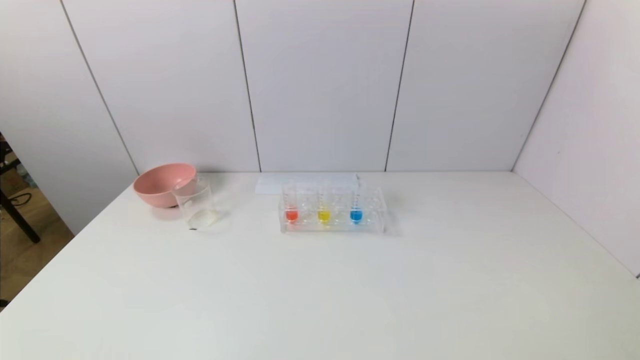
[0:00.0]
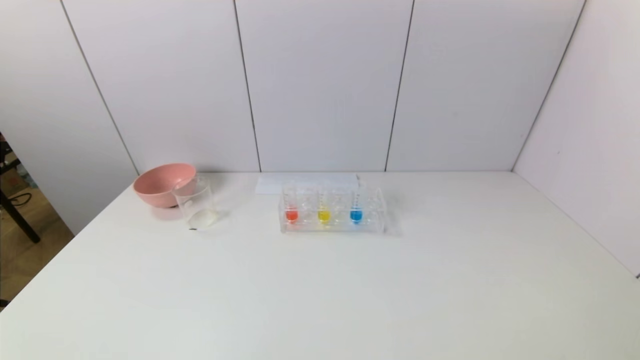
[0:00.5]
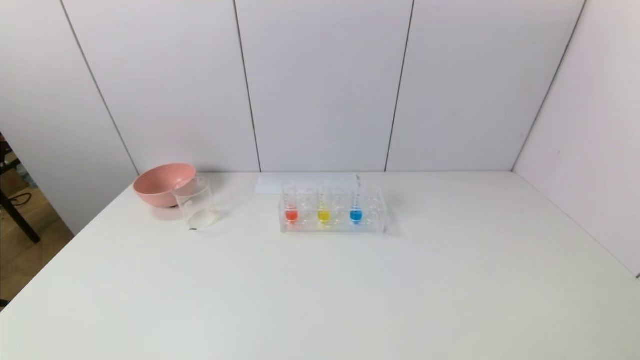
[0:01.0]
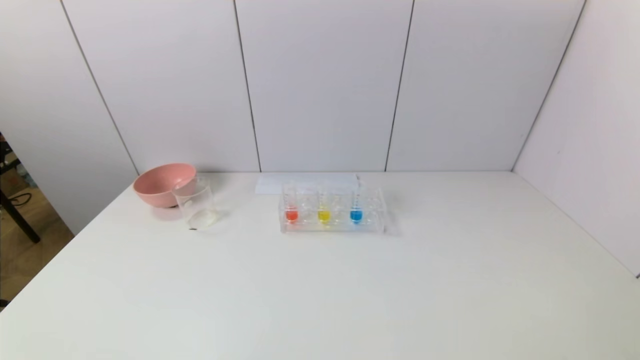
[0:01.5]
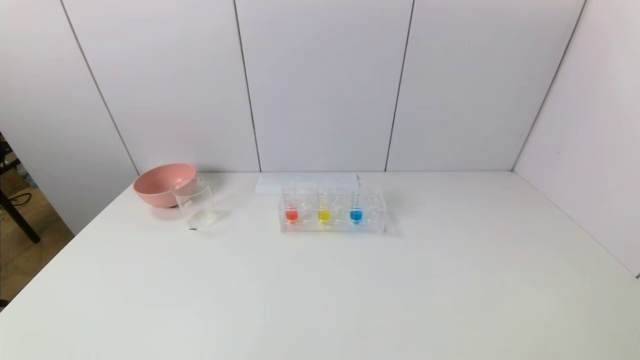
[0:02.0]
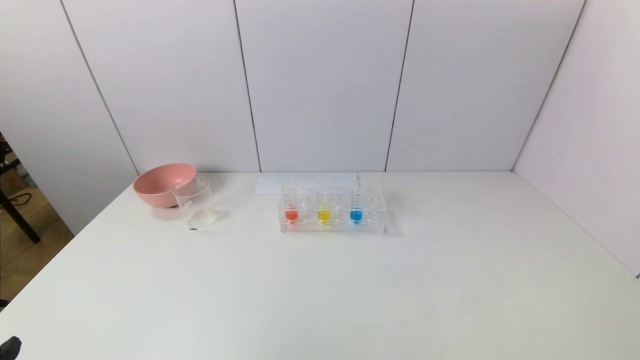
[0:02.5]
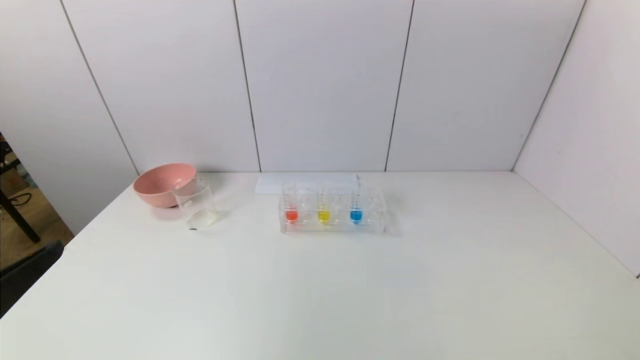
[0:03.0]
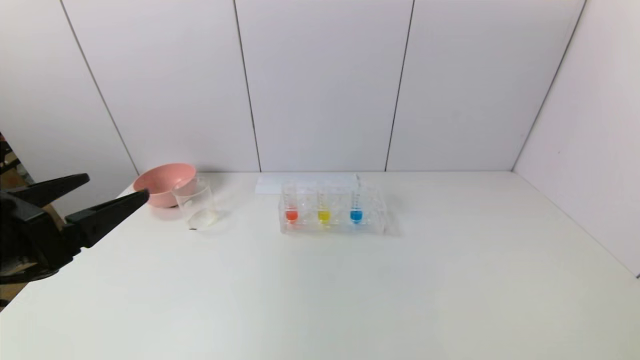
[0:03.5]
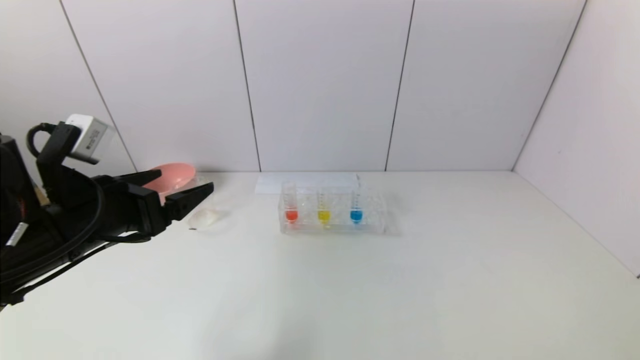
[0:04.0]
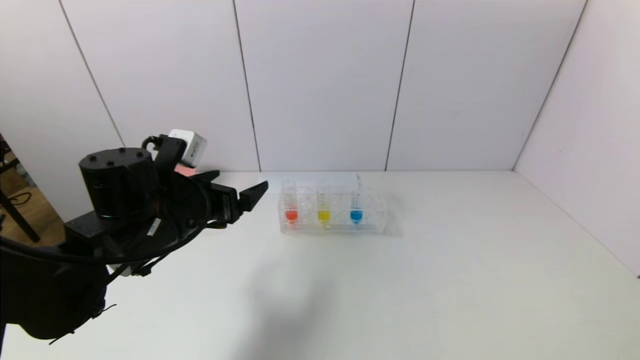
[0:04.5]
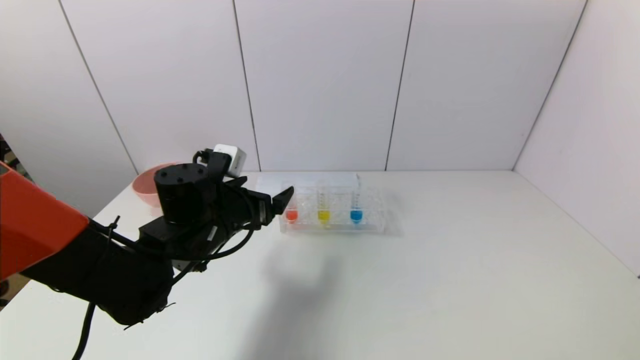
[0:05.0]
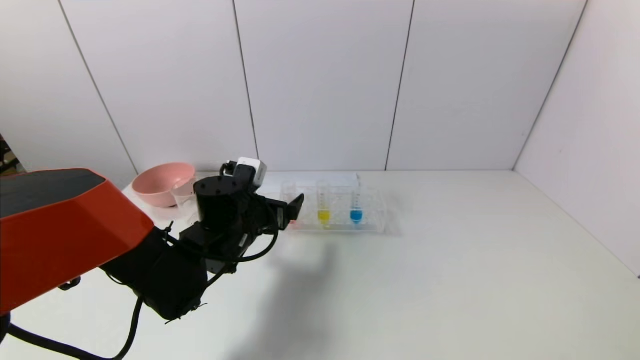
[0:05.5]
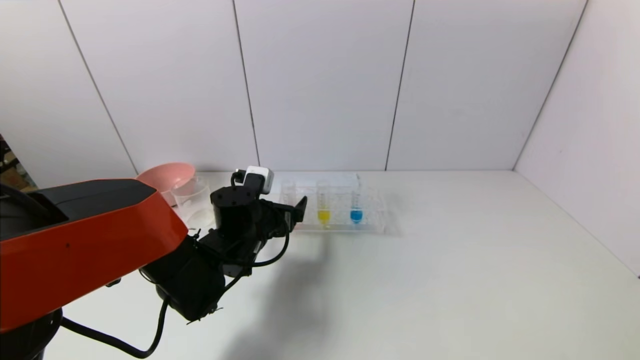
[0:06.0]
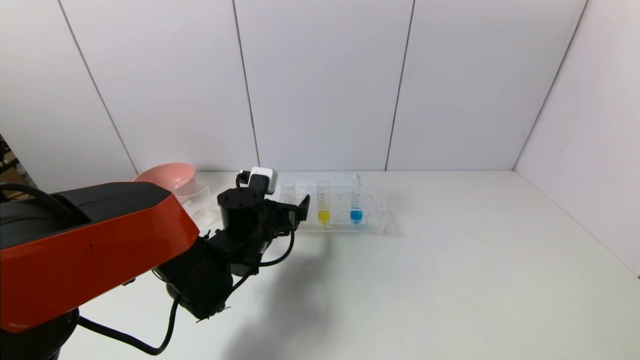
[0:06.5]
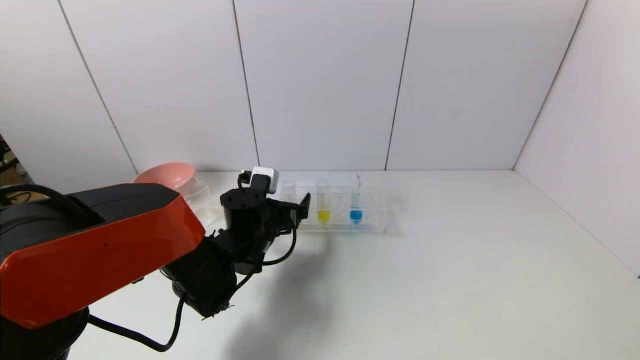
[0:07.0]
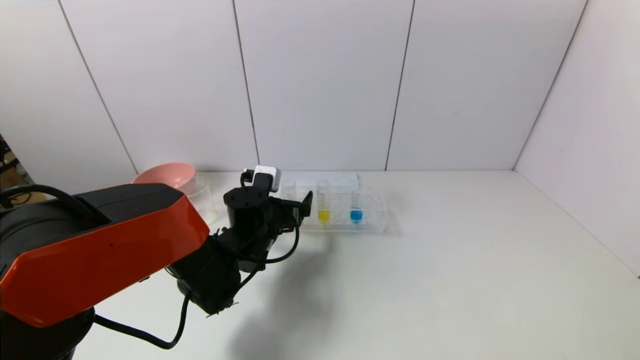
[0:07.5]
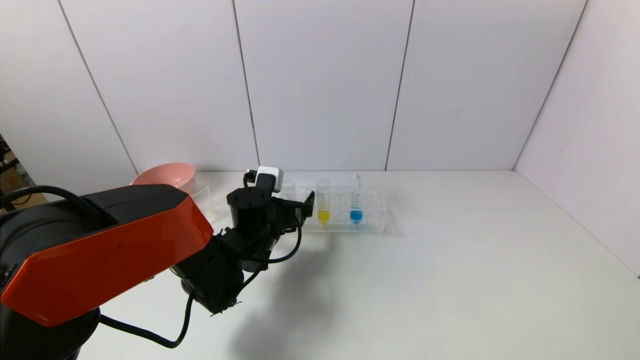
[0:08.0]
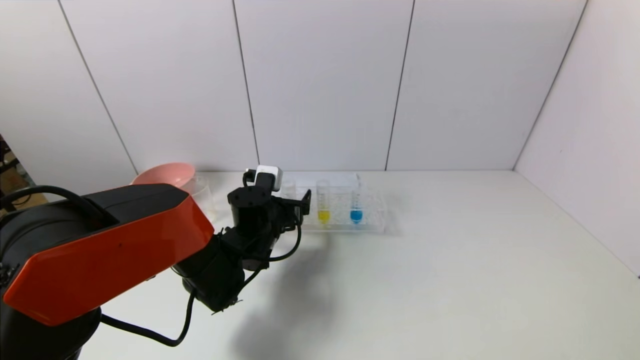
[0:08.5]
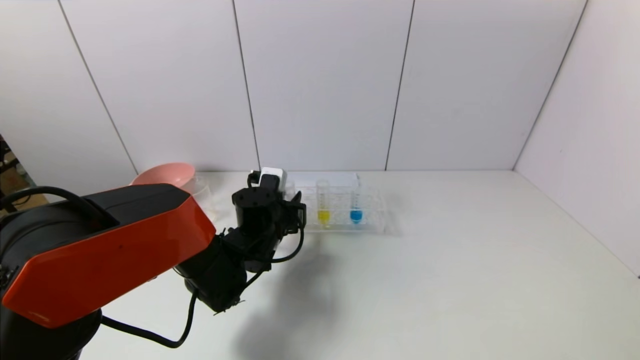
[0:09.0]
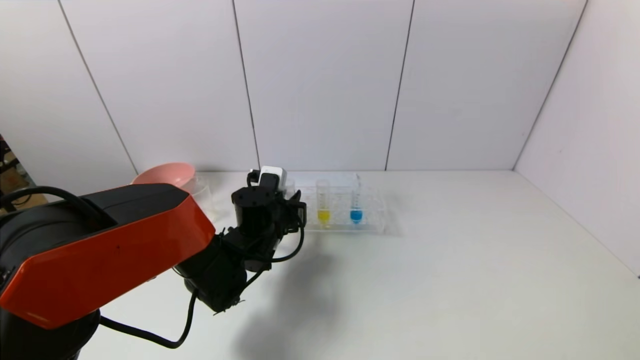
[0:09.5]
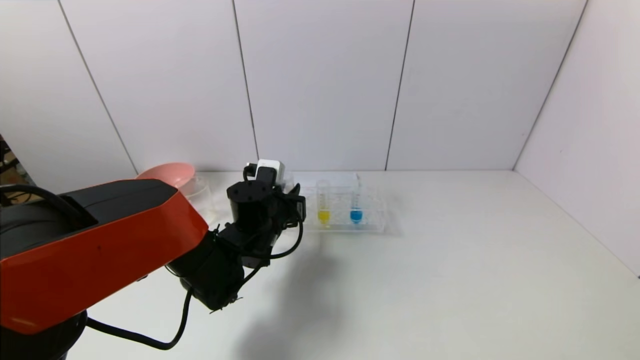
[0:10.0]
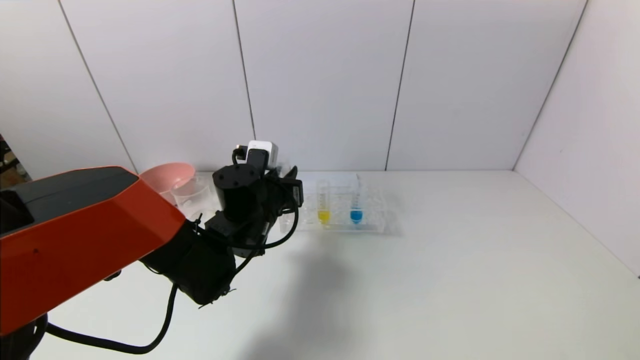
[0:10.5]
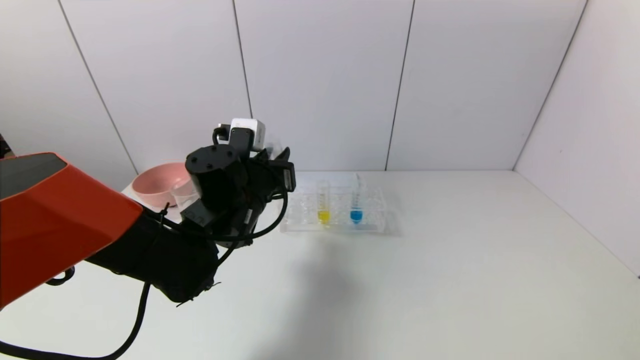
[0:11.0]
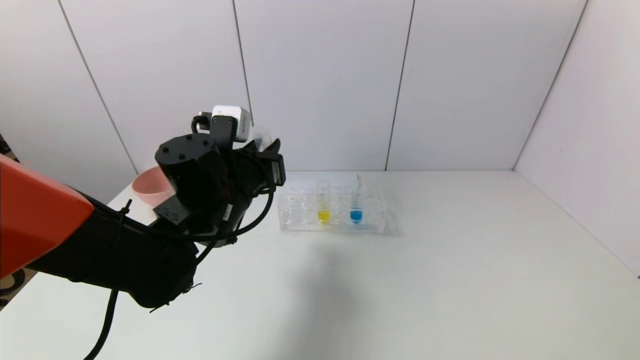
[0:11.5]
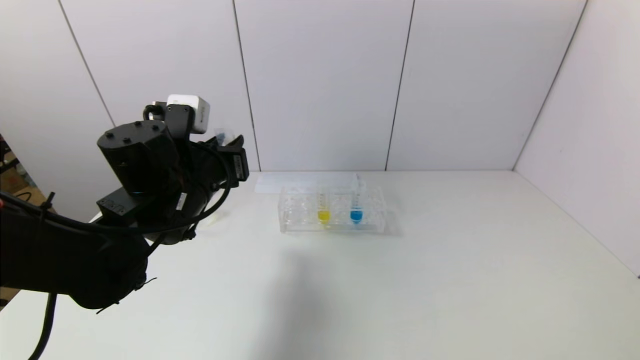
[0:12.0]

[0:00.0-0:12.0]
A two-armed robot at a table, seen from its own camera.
Task of the whole recording: pick up the test tube with yellow pigment and the test tube with red pigment by grippers and pour them into the beaker.
Step, 0:00.0 to 0:09.0: Grasp the red reagent with the left gripper.
0:02.0 to 0:04.0: The left gripper travels forward and upward by approximately 25 cm.
0:04.0 to 0:06.0: The left gripper shifts some 20 cm to the right, downward and forward.
0:06.0 to 0:08.0: The grippers move only a little.
0:08.0 to 0:10.0: The left gripper closes.
0:10.0 to 0:12.0: The left gripper moves upward, to the left and backward, some 15 cm.

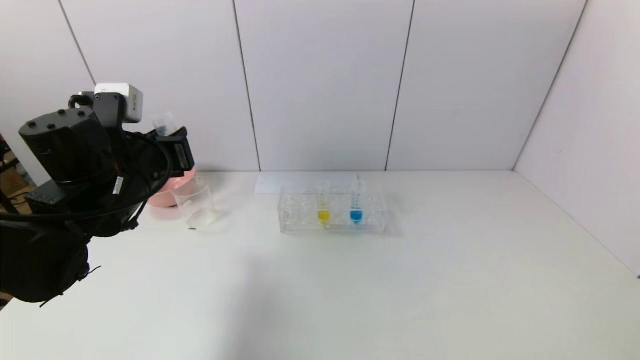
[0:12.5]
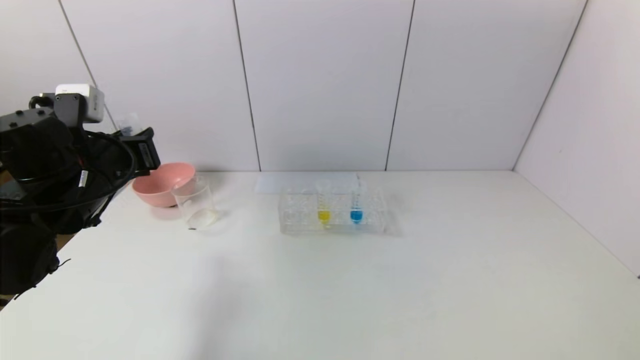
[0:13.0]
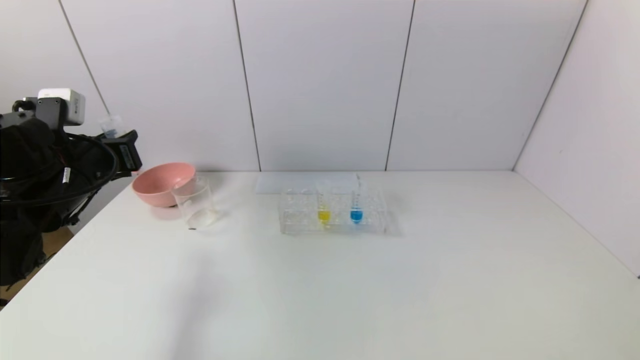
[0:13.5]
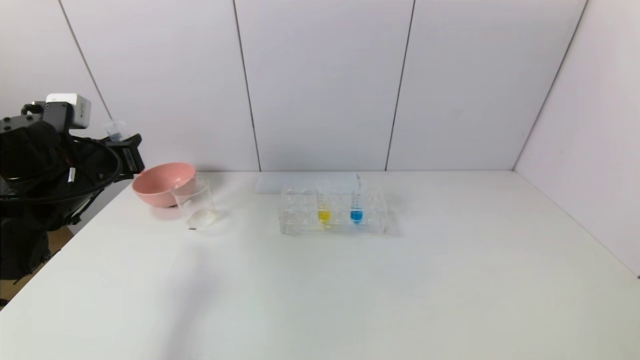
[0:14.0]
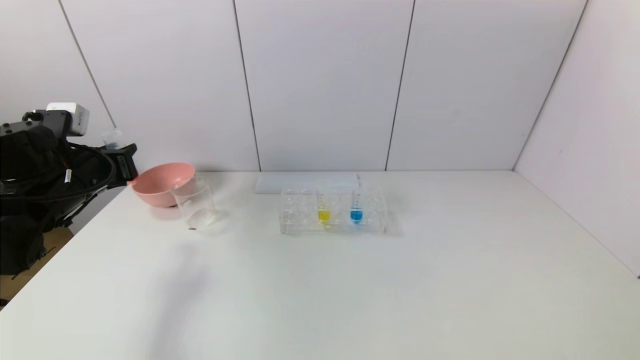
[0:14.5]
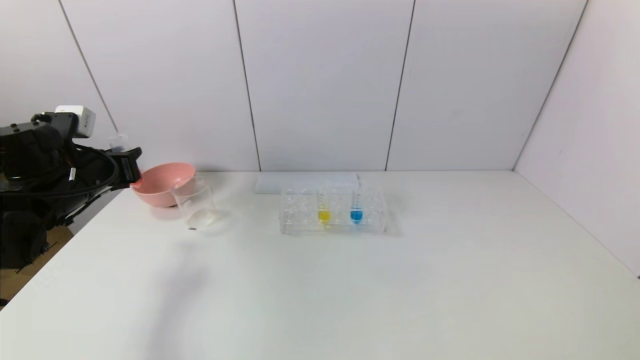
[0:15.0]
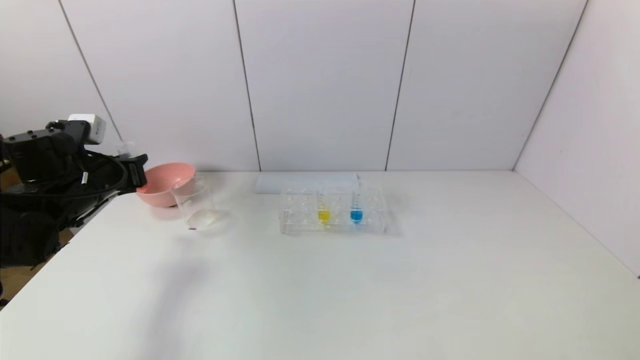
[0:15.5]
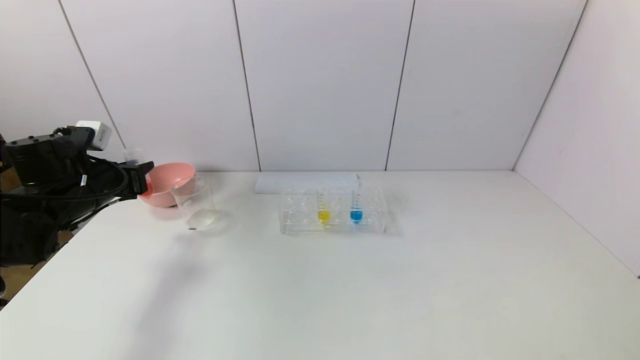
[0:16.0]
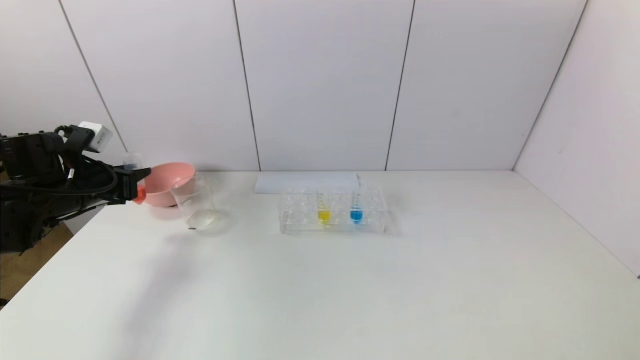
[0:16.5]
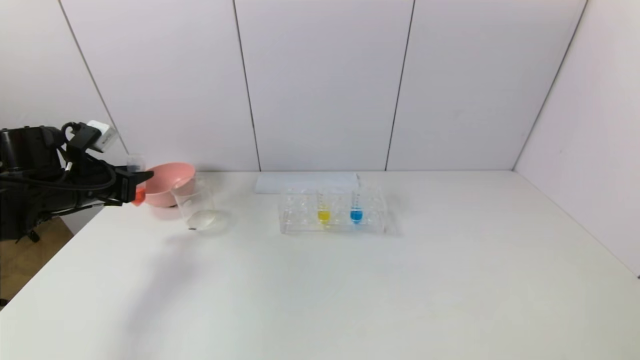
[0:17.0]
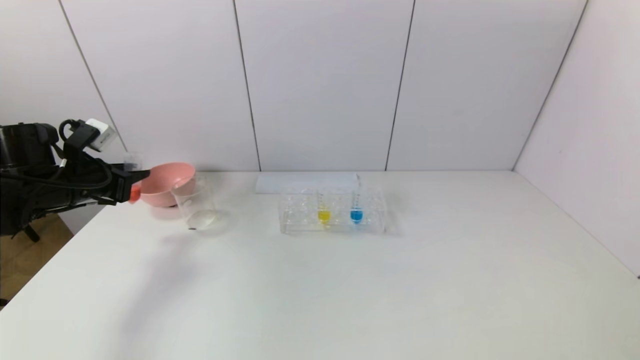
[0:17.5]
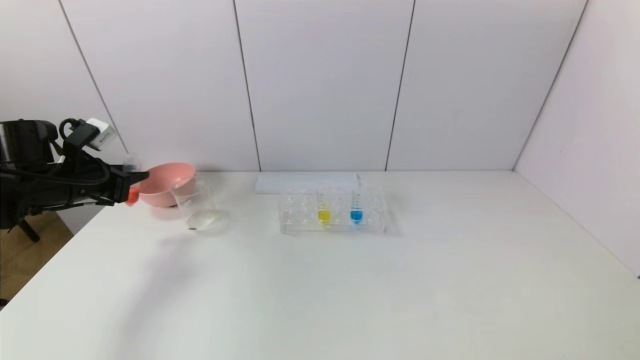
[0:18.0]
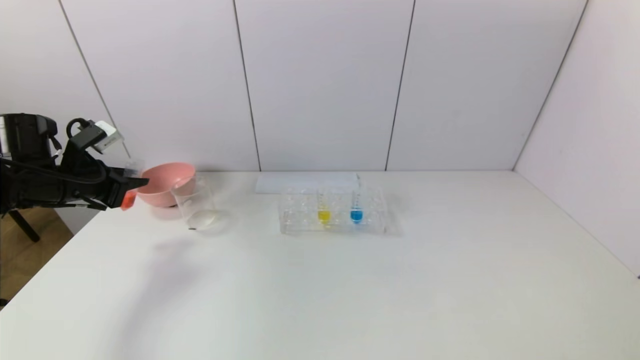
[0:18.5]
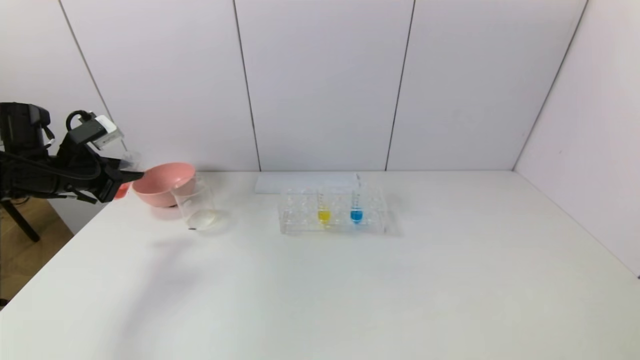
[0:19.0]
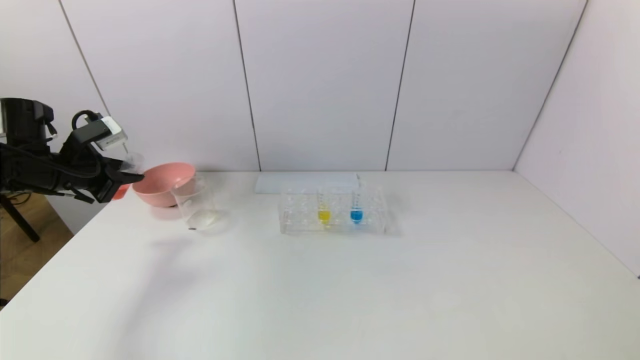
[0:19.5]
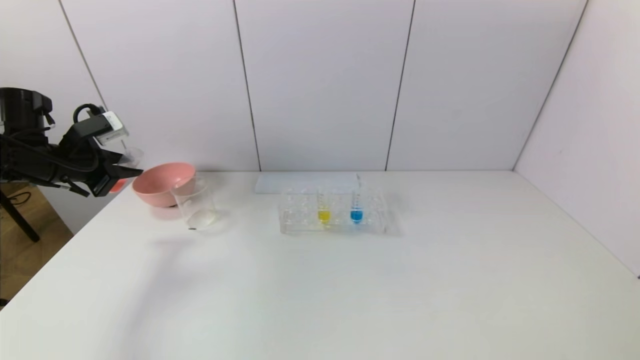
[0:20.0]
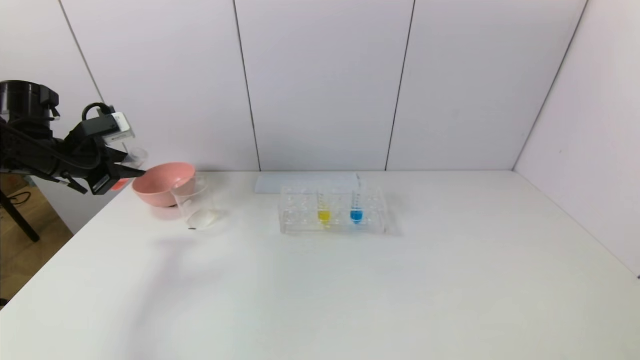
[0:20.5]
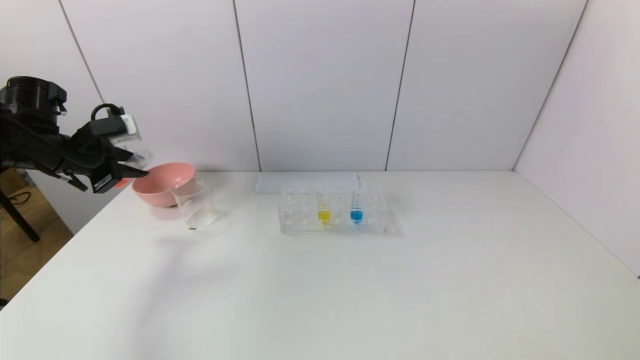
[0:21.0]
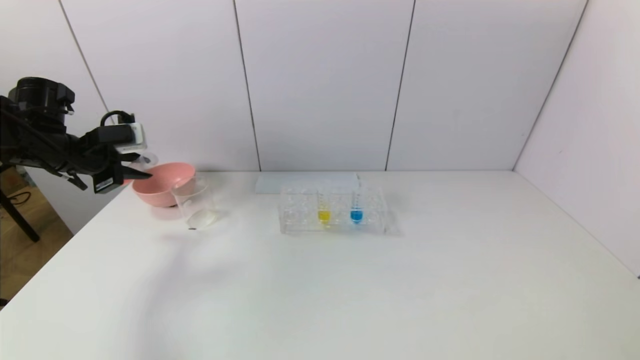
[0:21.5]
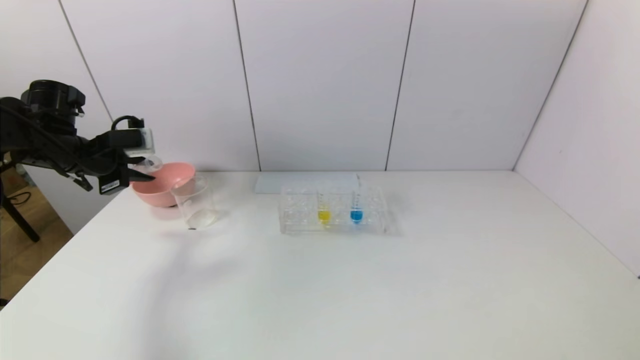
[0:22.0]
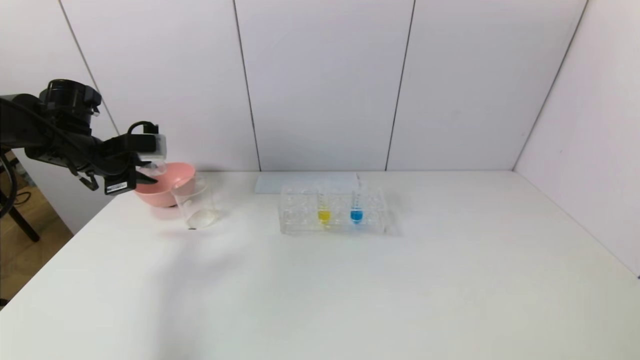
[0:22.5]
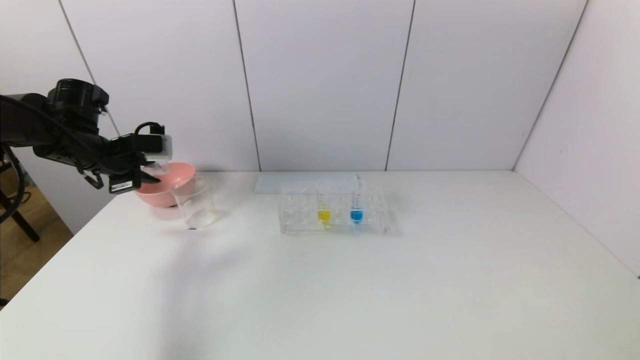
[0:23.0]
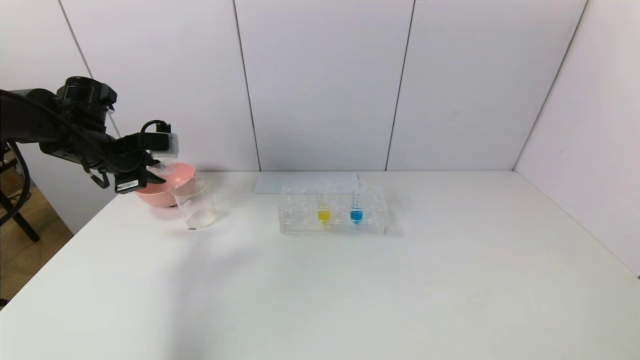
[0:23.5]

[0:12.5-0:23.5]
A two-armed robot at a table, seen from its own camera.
Task of the whole recording: pick up the test tube with yellow pigment and the test tube with red pigment by grippers and pour them into the beaker.
0:12.5 to 0:14.5: The left gripper travels to the left by some 10 cm.
0:14.5 to 0:16.0: The grippers stay close to where they were, moving slightly.
0:21.5 to 0:23.5: The grippers make only small movements.
